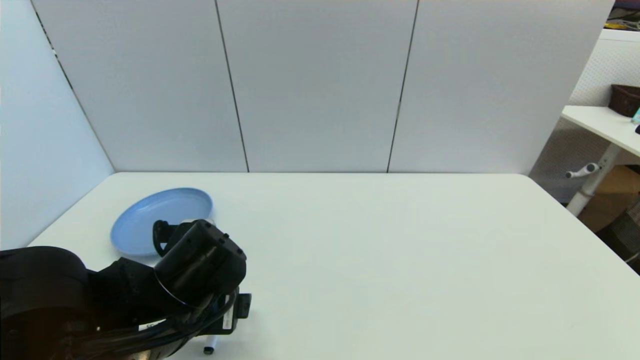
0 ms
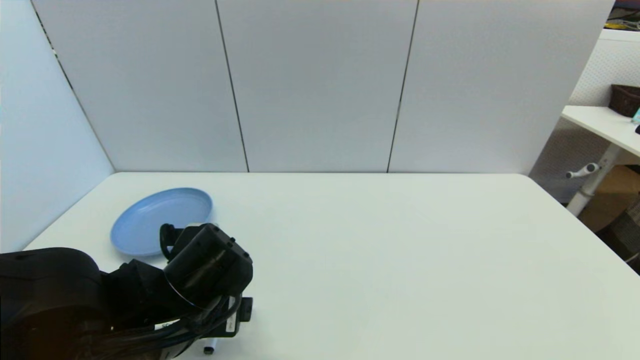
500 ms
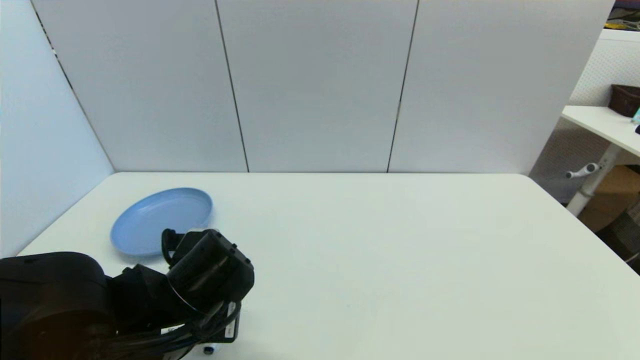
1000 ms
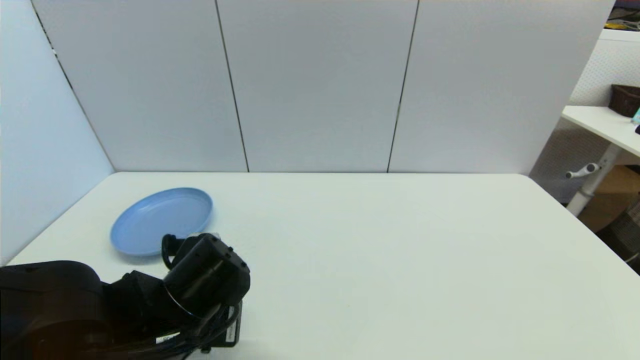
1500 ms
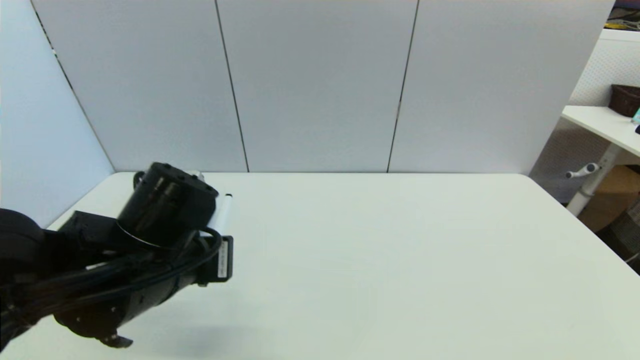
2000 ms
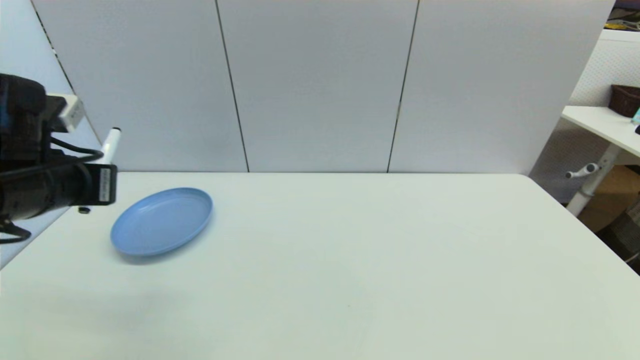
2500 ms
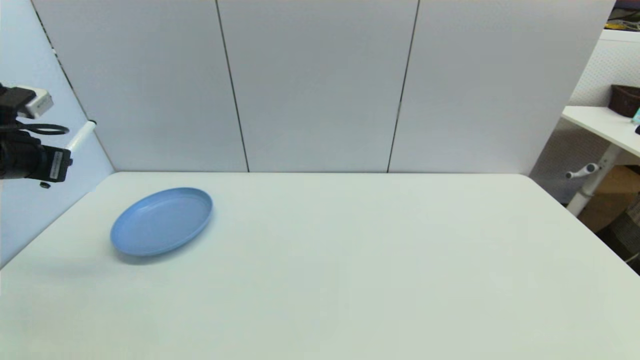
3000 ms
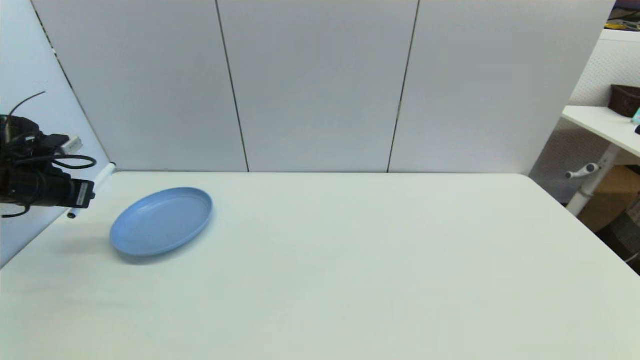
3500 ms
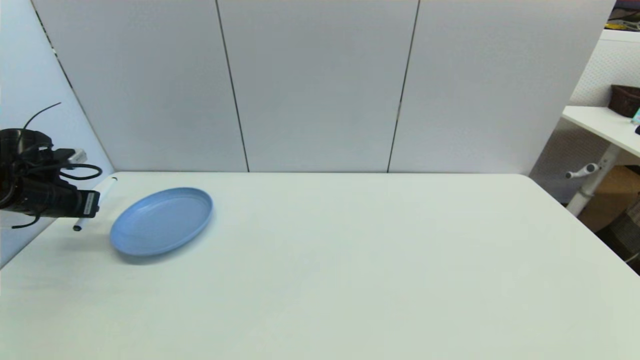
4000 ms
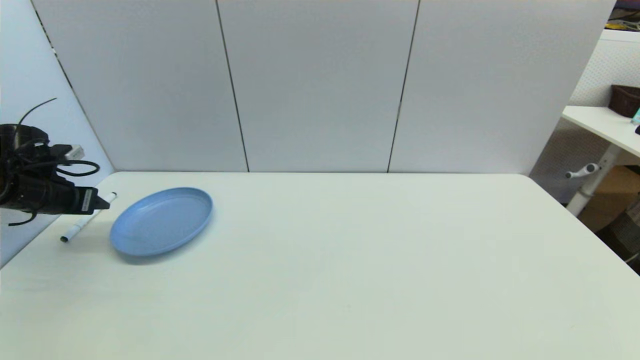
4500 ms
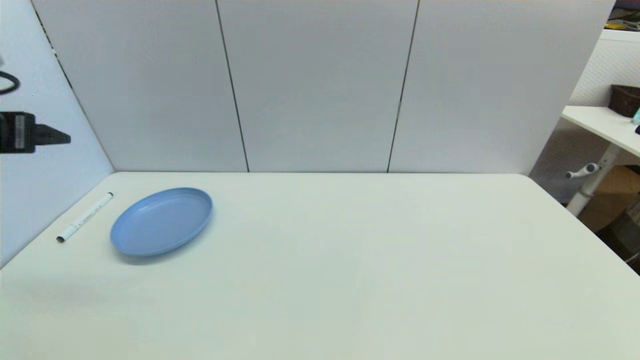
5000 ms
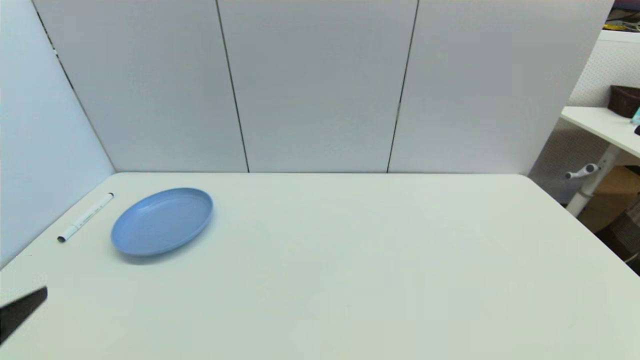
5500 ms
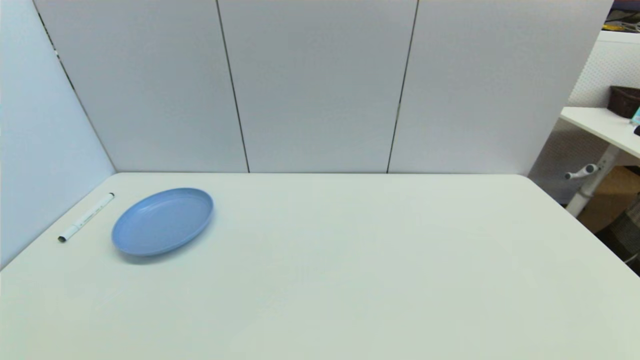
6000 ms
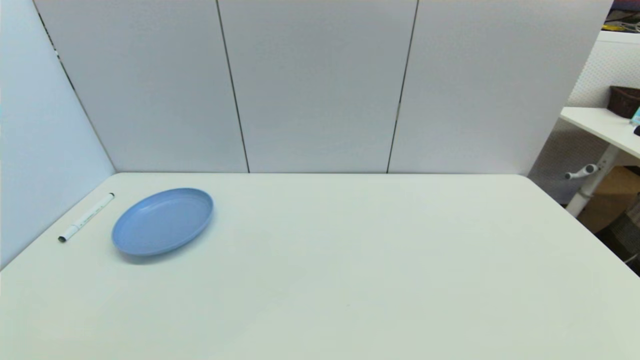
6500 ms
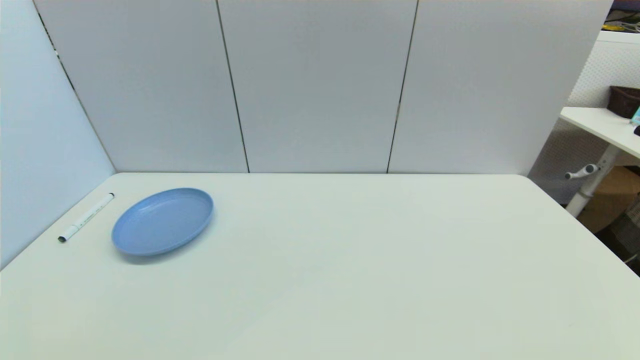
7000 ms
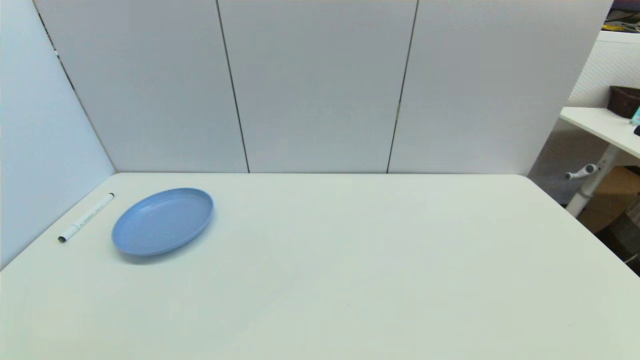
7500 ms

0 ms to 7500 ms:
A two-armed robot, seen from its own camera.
Task of the whole recording: put the black marker in the designated position.
Step, 1500 ms to 4000 ms: Place the Marker pen on the table with left gripper.
0 ms to 2000 ms: The left gripper changes place by some 5 cm, and closes.
2000 ms to 4000 ms: The left gripper is displaced to the left and forward by approximately 35 cm.
4000 ms to 5500 ms: The left gripper travels backward and to the right by approximately 35 cm, and opens its fingers.
